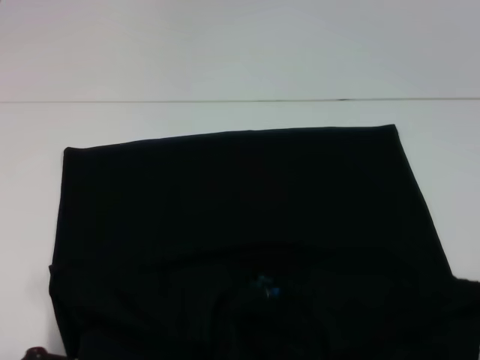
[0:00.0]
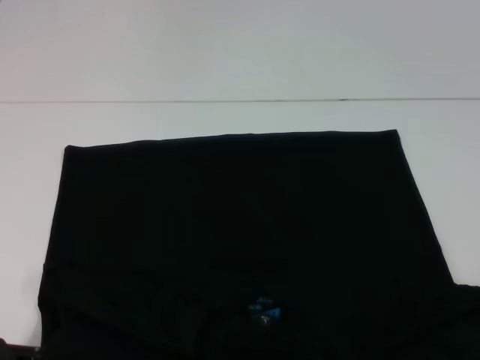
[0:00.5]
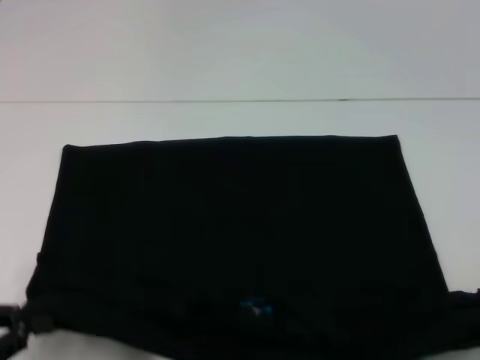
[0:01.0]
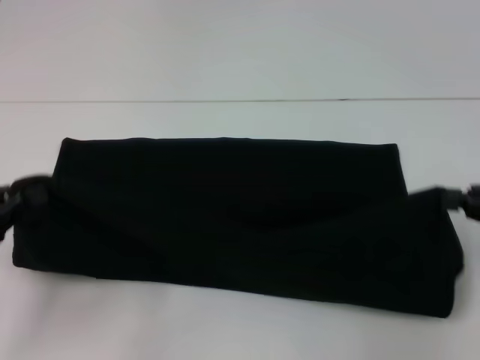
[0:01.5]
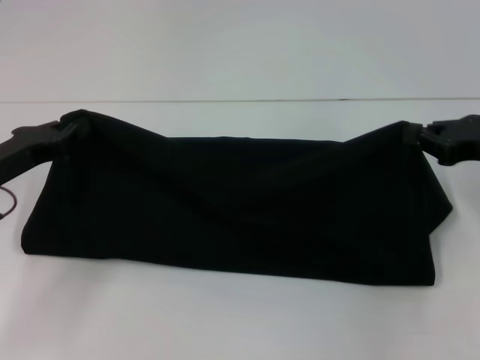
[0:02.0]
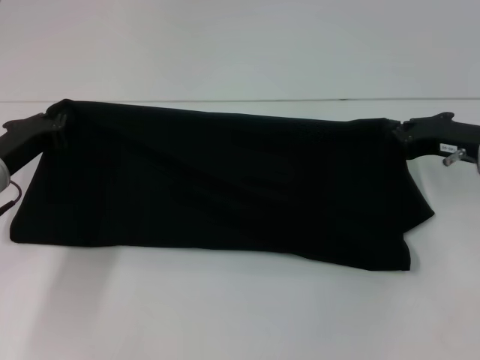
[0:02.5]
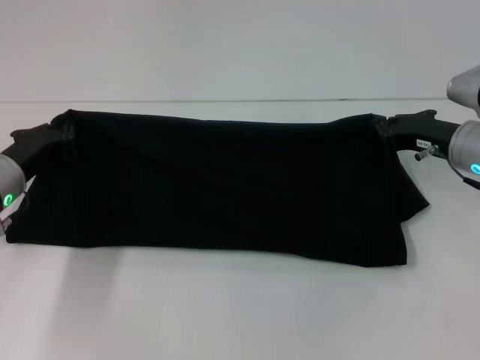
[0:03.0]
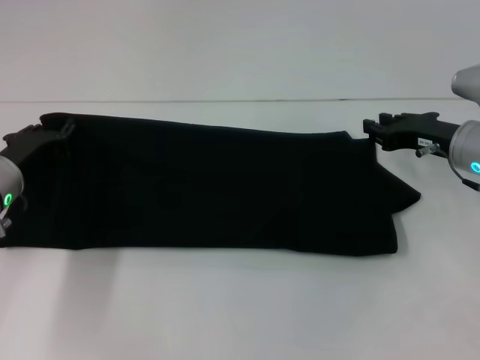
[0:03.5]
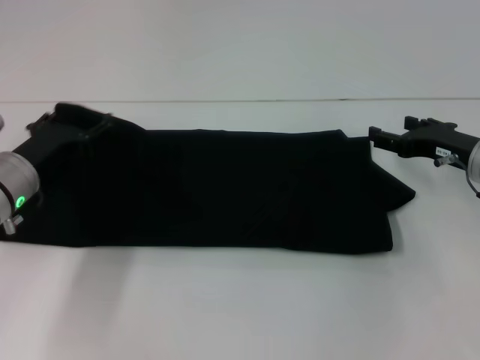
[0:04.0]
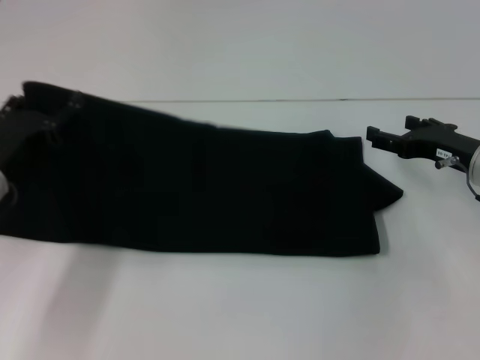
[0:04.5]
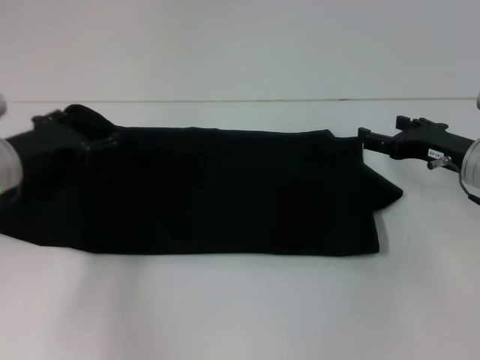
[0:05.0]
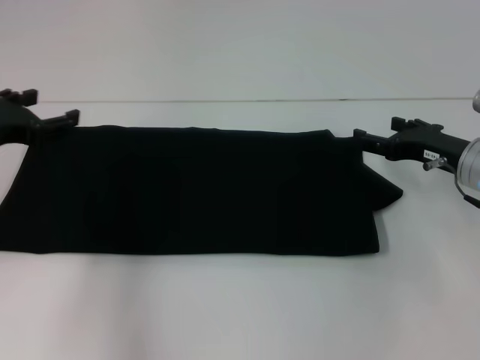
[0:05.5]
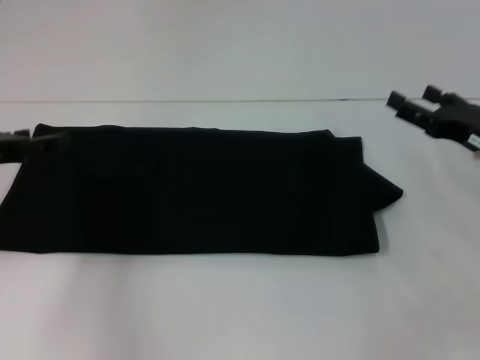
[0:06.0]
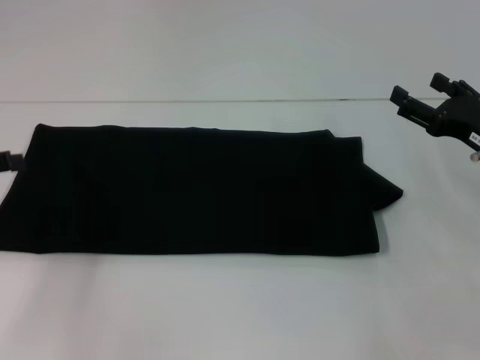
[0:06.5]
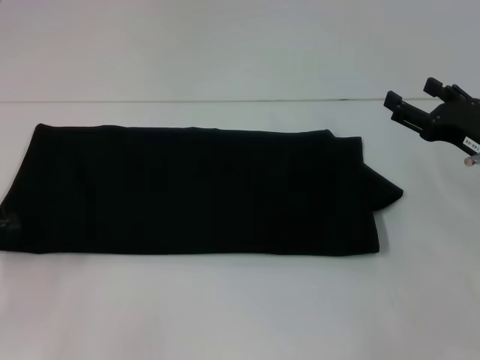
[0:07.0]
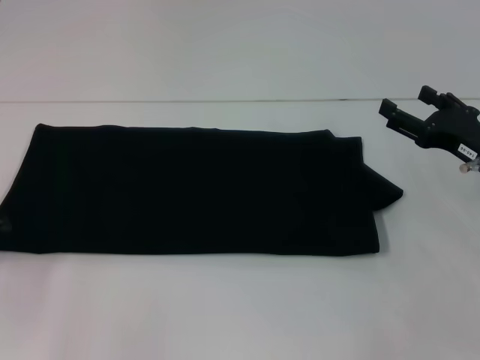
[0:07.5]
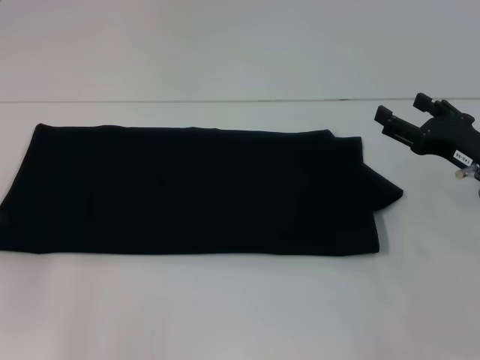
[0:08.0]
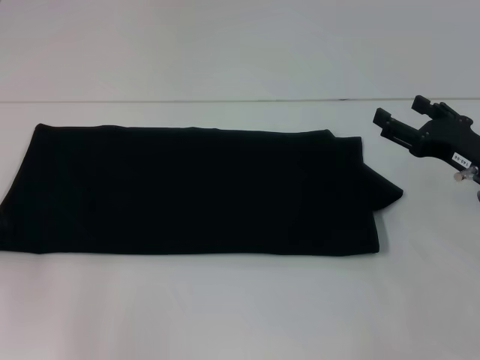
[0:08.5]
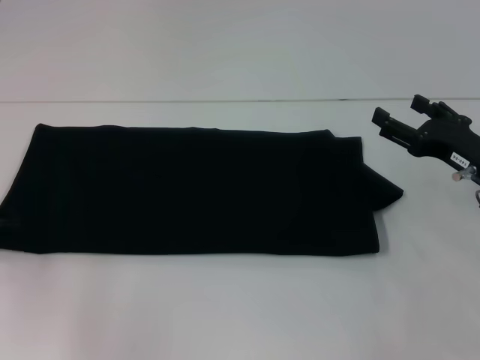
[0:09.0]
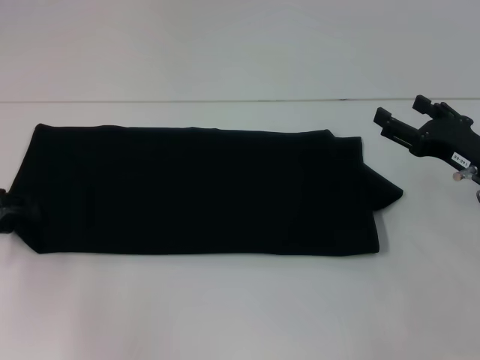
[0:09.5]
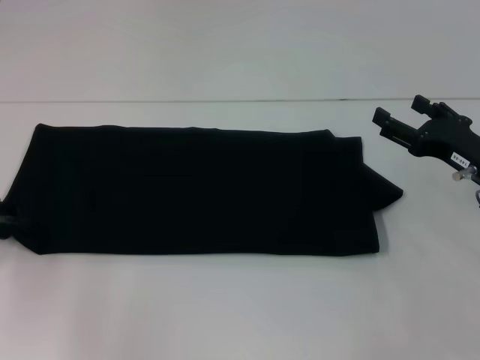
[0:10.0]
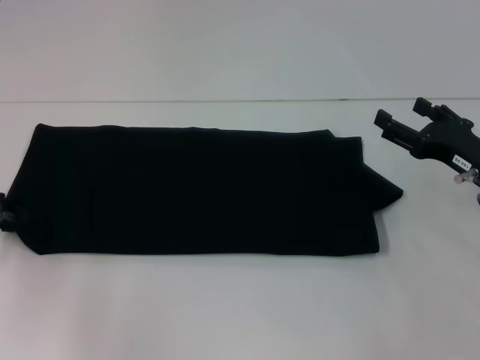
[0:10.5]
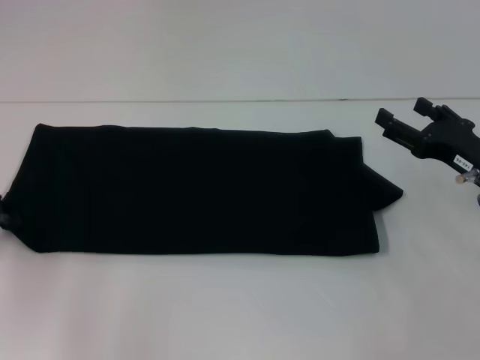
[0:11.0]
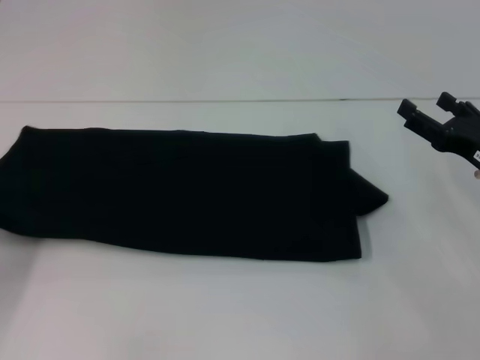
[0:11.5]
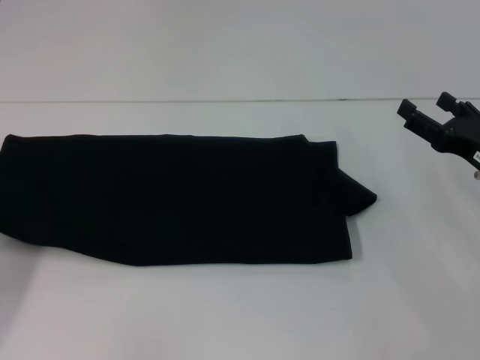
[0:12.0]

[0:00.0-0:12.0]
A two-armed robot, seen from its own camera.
Step, 0:00.5 to 0:05.0: Fold the clothes with your right hand.
0:00.0 to 0:02.0: The right gripper heads forward and upward, covering roughly 15 cm, while the left gripper moves forward, some 15 cm.
0:02.0 to 0:04.0: The left gripper shifts by roughly 5 cm, and opens up; the right gripper goes approximately 5 cm downward, and opens.
0:04.0 to 0:06.0: The left gripper shifts about 10 cm upward and to the left.
0:06.0 to 0:08.0: The left gripper moves to the left, approximately 5 cm.
0:10.0 to 0:12.0: The left gripper heads backward, covering some 5 cm, and closes.

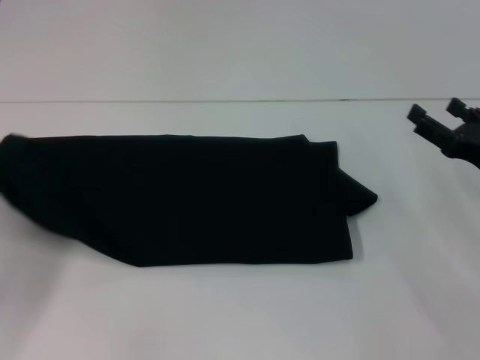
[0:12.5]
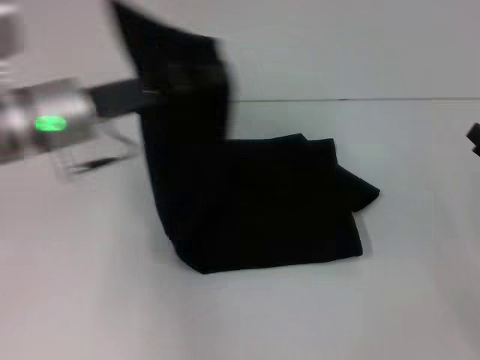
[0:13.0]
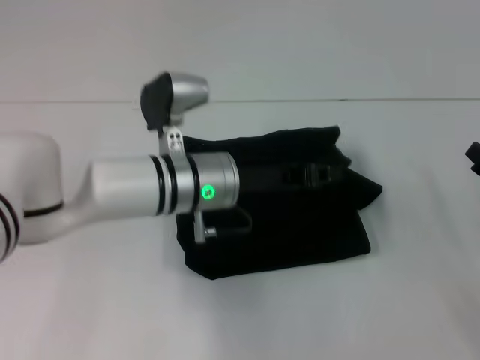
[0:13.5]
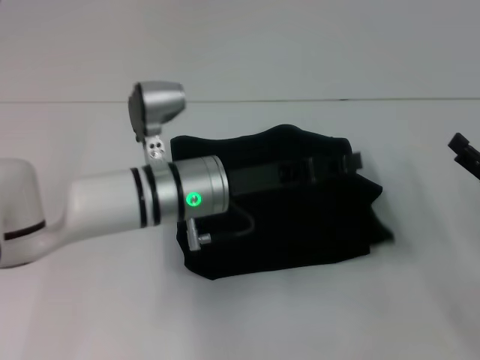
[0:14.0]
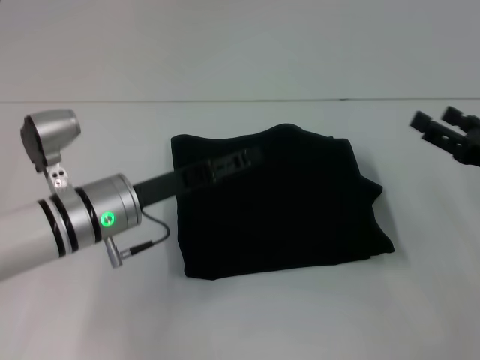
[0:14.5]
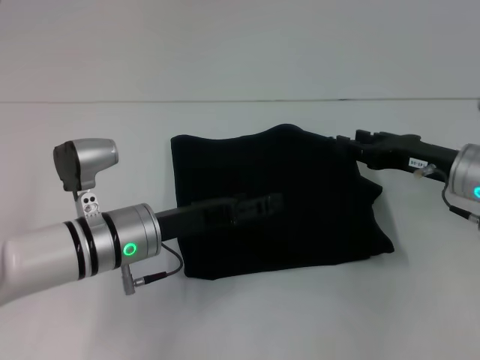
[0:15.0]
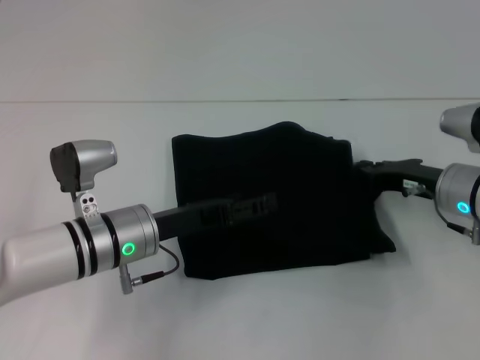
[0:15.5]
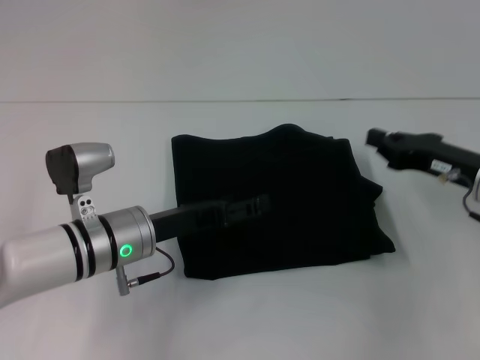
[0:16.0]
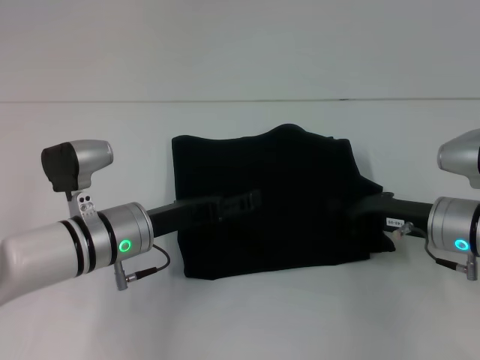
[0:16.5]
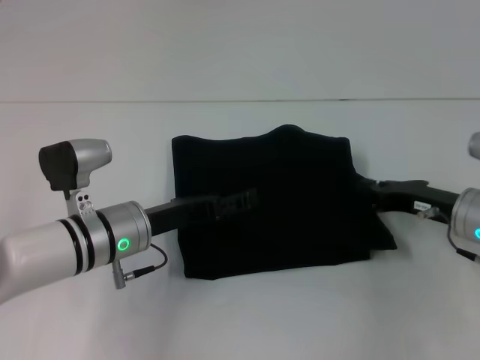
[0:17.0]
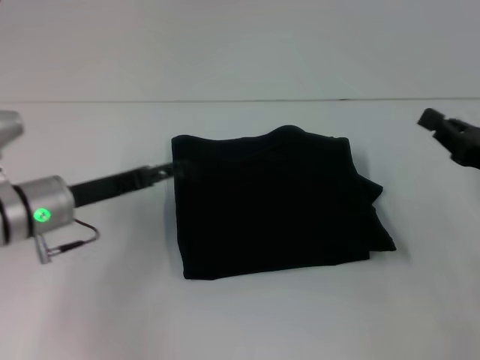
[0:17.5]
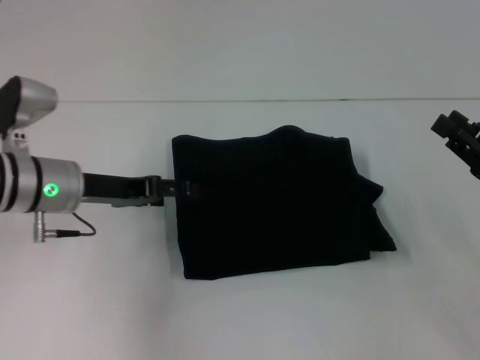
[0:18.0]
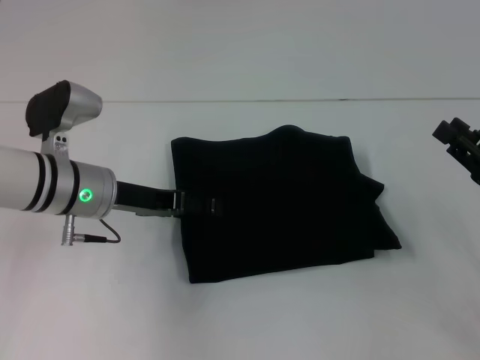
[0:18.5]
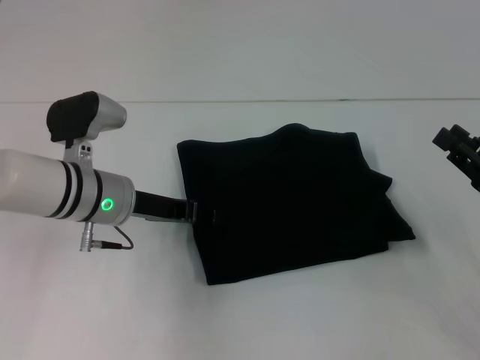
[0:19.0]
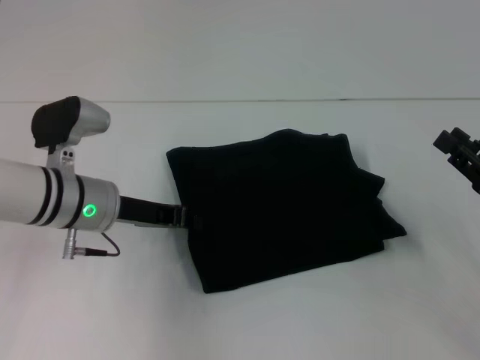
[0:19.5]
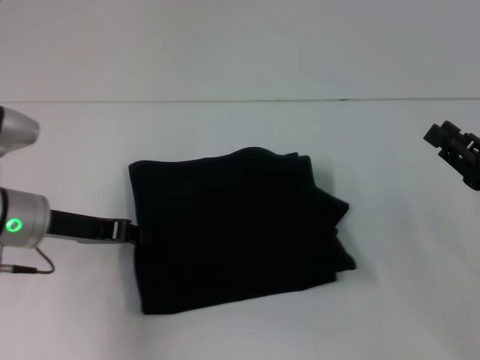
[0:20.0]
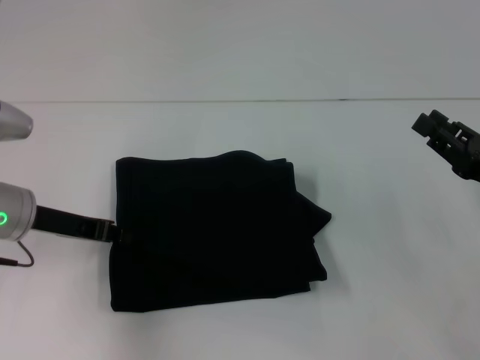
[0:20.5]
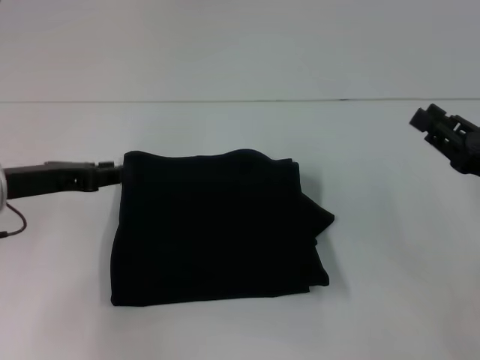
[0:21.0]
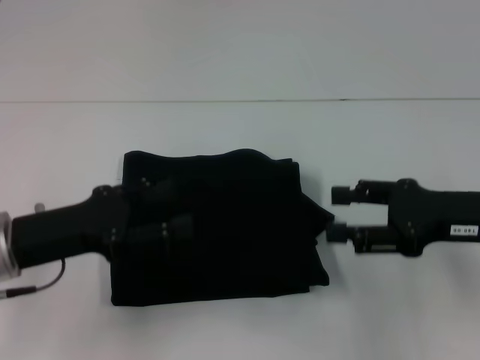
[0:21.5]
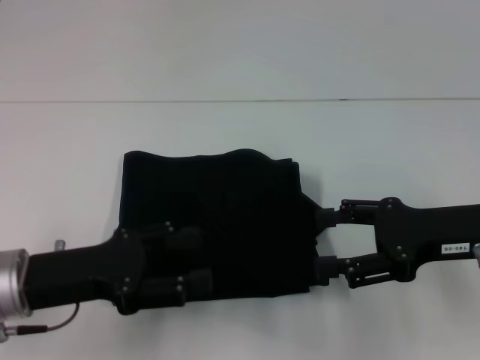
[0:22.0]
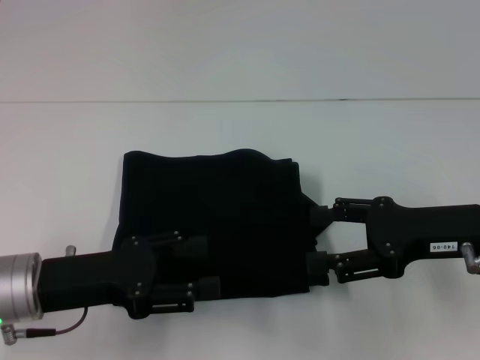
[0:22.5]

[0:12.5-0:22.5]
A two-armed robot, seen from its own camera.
0:12.5 to 0:14.5: The left gripper is displaced to the right by approximately 20 cm, and opens up.
0:14.5 to 0:16.5: The left gripper opens, while the right gripper travels to the left by some 10 cm, and closes up.
0:16.5 to 0:18.5: The left gripper ends up approximately 5 cm from where it was; the right gripper is displaced to the right and backward by some 10 cm, and opens its fingers.
0:18.5 to 0:20.5: The left gripper travels to the left by approximately 5 cm, and closes.
0:20.5 to 0:22.5: The left gripper heads backward, covering approximately 10 cm, and opens up. Meanwhile the right gripper moves to the left, approximately 5 cm, and opens.
